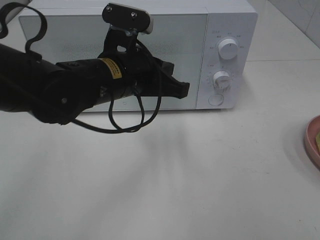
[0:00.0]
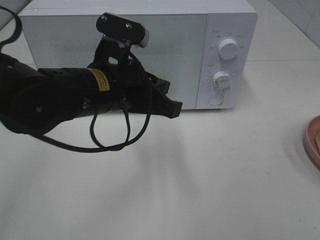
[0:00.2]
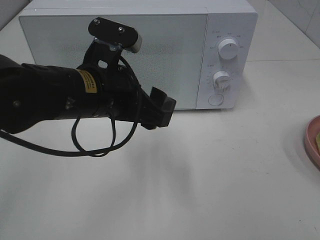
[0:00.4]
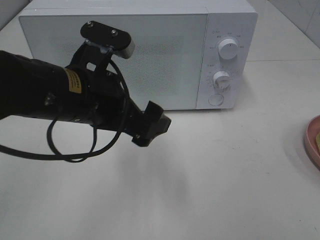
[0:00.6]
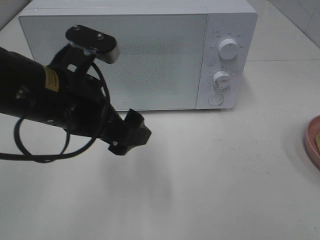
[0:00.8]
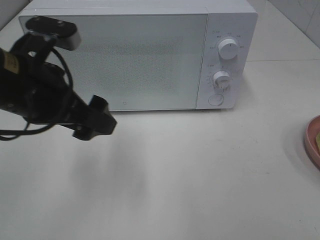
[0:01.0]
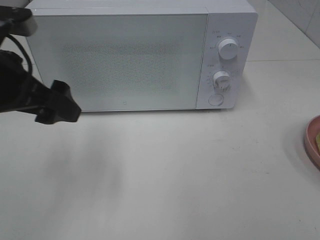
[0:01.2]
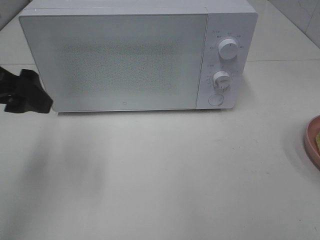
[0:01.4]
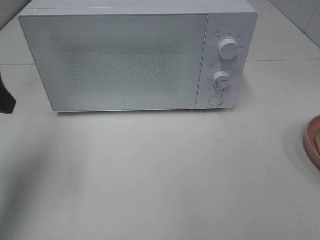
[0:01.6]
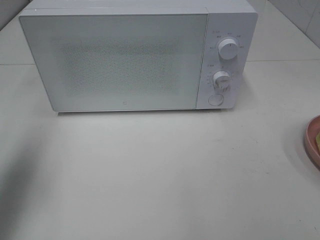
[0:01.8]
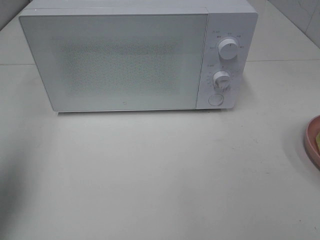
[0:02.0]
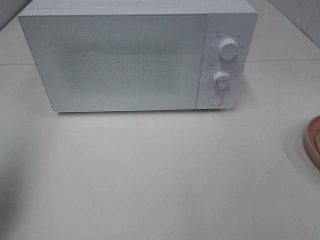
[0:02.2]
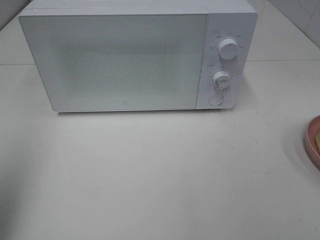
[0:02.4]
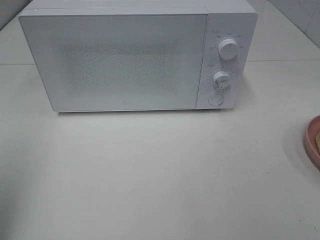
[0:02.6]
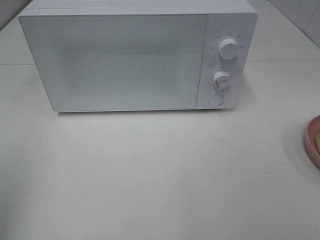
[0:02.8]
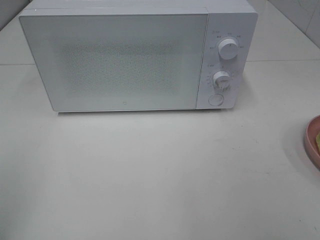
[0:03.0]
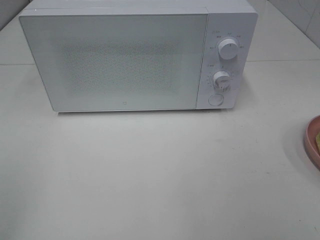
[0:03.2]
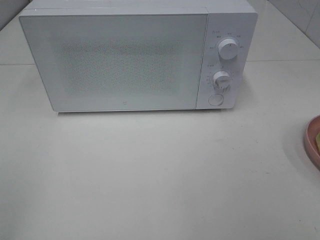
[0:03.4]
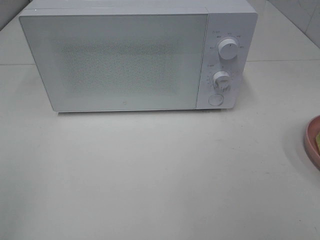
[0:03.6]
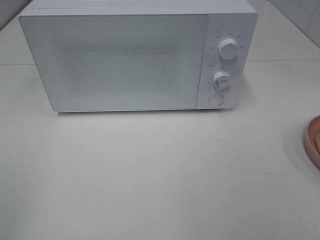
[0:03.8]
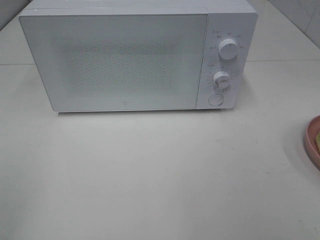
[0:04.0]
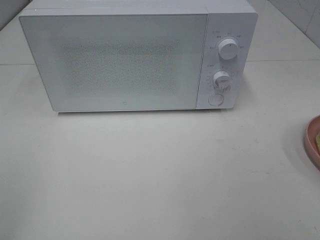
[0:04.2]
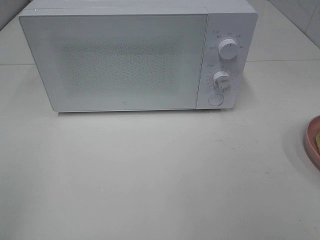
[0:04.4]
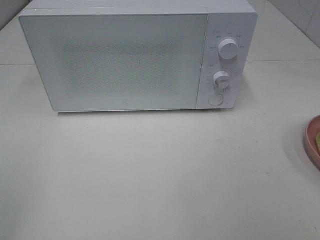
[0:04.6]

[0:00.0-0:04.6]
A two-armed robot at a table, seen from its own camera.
Task of the whole recording: Heat Sandwich.
0:00.0 to 0:01.6: The left gripper heads to the left, covering roughly 20 cm, and opens.
0:01.6 to 0:03.0: The left gripper shifts approximately 20 cm backward.

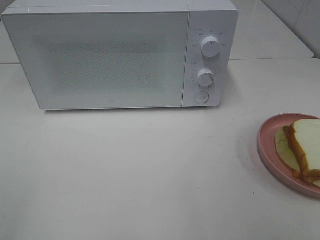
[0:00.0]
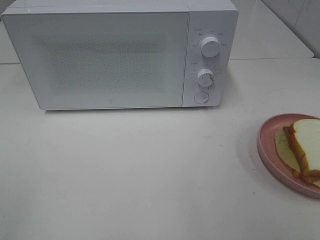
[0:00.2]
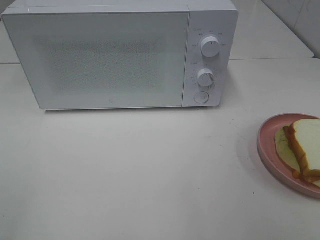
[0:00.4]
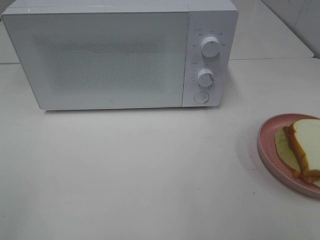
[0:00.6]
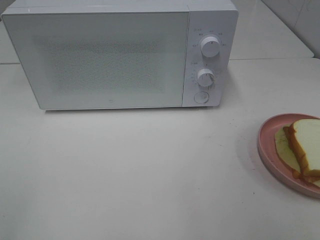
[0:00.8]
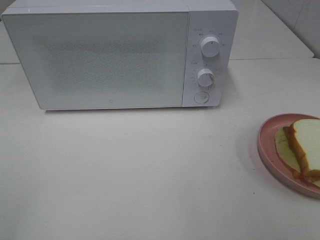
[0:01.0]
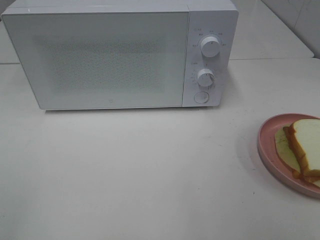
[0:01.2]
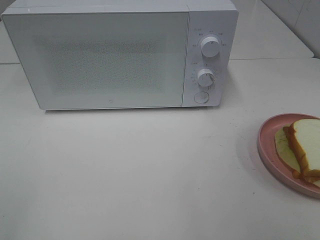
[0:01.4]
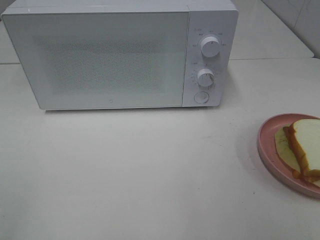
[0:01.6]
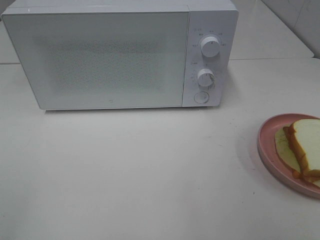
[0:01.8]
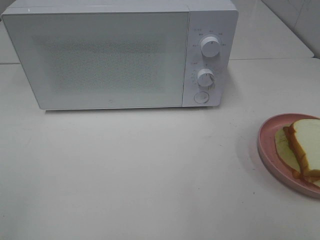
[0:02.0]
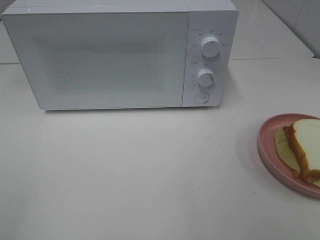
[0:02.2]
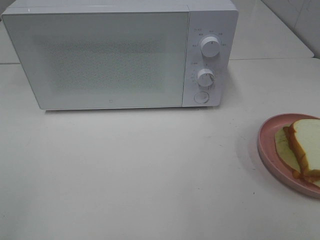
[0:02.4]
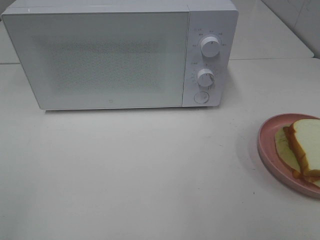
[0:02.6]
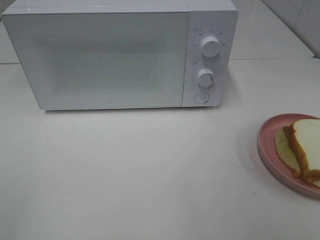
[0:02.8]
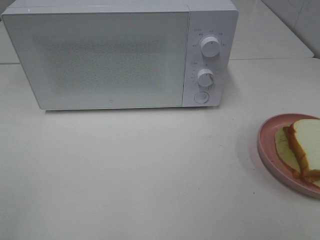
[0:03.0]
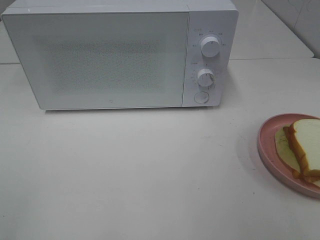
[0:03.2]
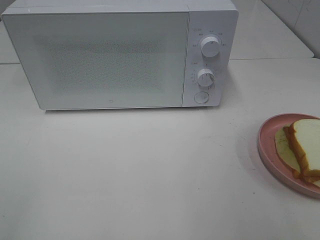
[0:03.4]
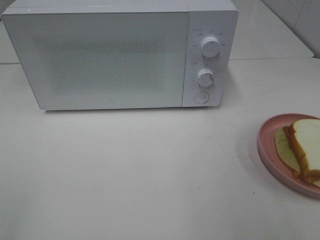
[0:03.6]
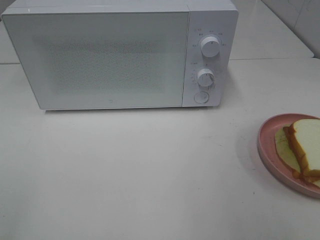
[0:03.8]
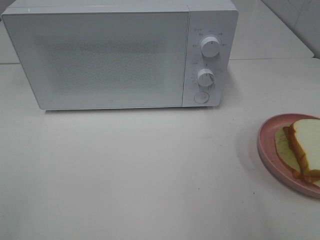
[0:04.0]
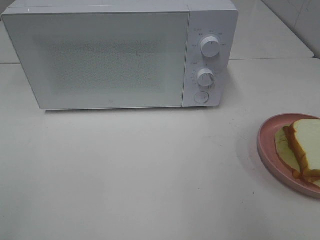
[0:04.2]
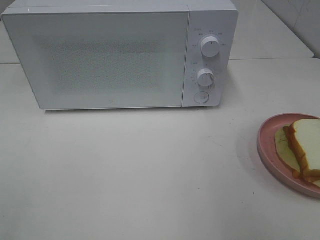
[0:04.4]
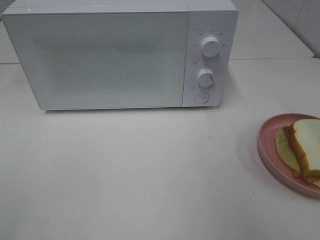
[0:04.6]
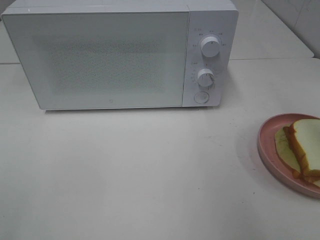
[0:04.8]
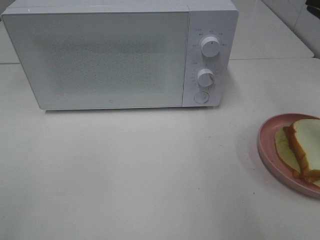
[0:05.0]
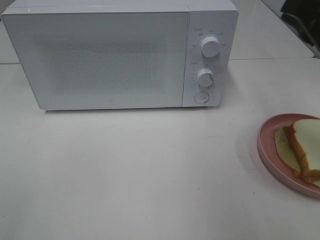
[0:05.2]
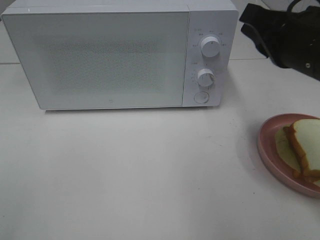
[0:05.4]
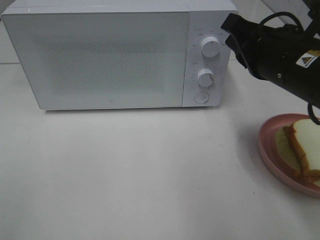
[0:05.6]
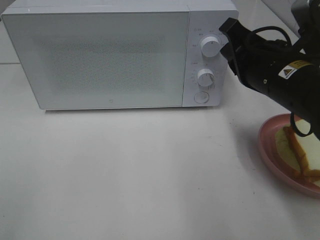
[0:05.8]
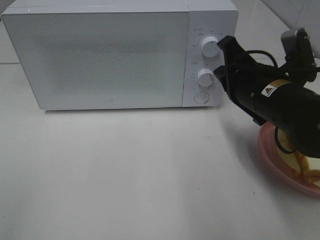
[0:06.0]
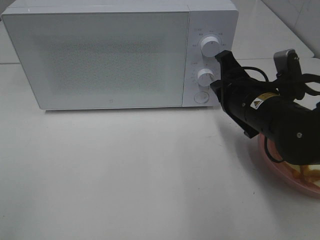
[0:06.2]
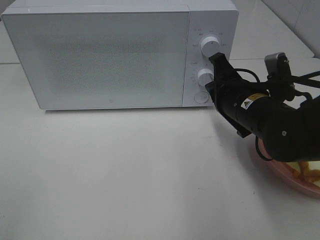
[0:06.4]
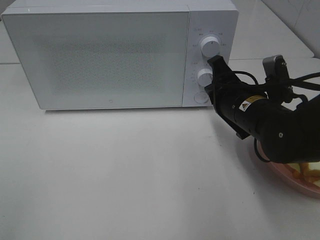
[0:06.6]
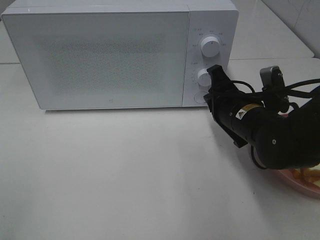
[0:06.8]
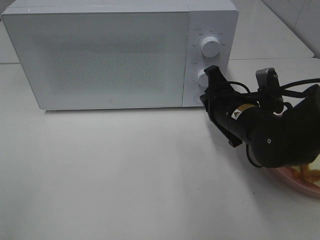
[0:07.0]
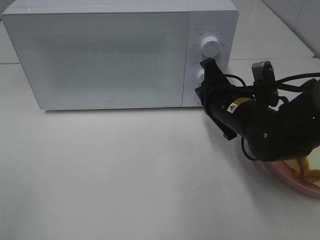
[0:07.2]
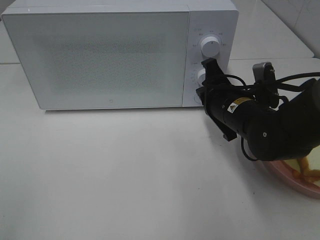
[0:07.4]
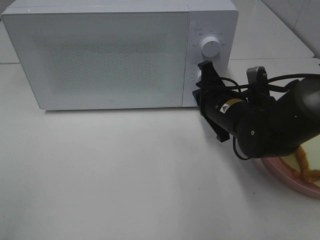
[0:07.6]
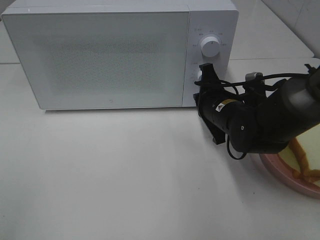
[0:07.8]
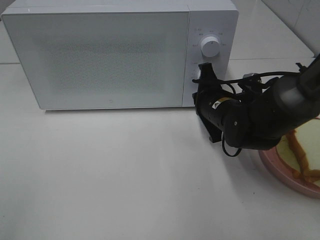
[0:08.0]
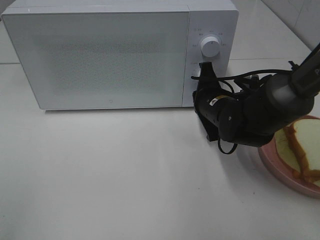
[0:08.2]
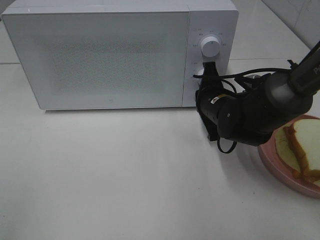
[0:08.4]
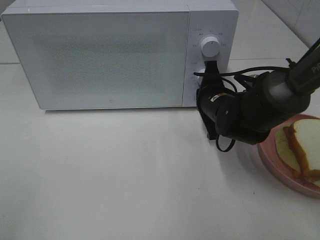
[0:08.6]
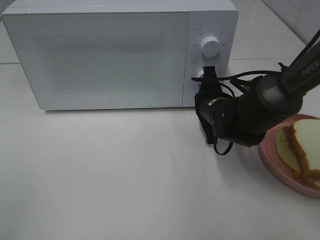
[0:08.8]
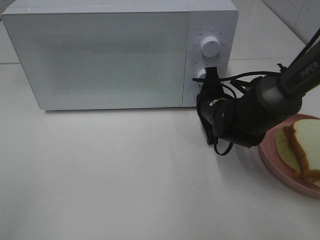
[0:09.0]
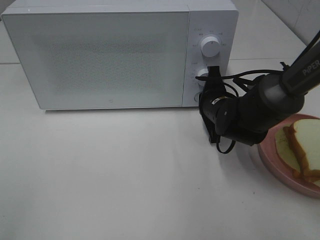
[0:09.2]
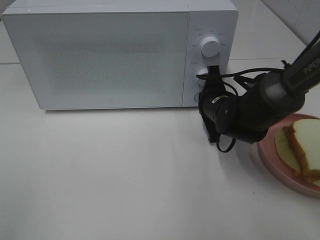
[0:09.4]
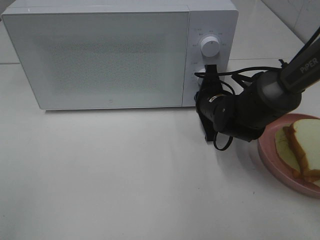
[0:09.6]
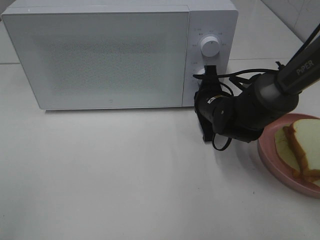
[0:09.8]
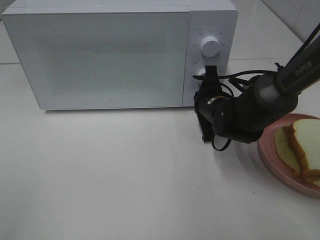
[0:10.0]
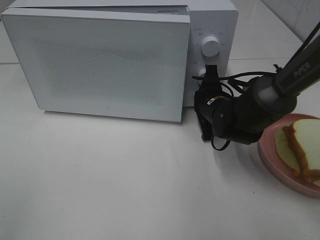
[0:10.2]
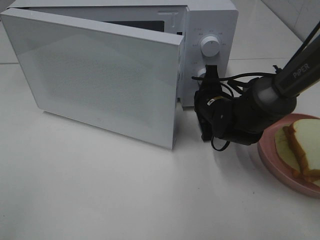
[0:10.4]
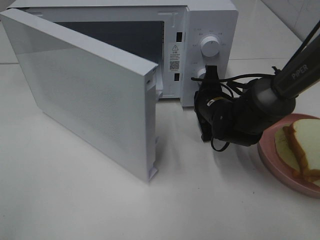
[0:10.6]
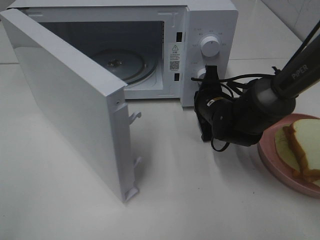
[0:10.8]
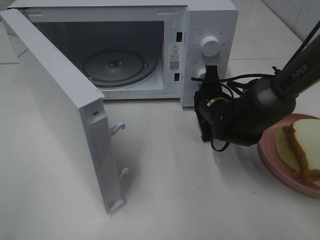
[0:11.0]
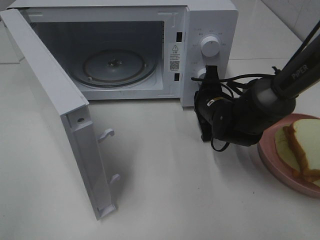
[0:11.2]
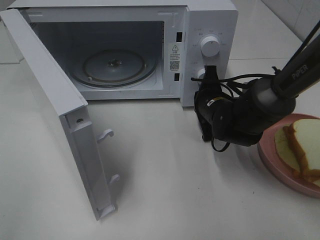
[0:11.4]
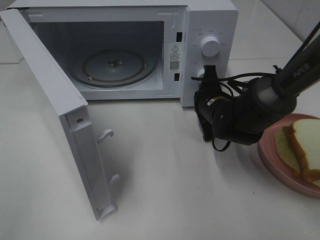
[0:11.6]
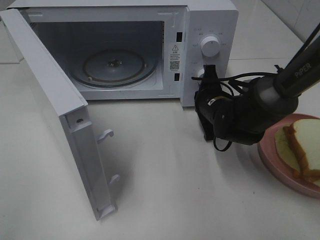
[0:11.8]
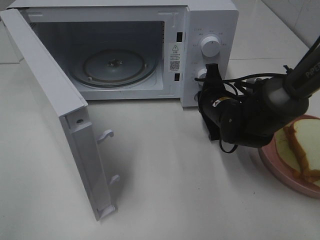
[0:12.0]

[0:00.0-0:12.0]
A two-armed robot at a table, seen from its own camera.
Task of the whole recording: Heat Sandwich.
0:00.0 to 0:01.6: Neither gripper changes place.
0:04.4 to 0:06.0: The right gripper travels downward, forward and to the left by approximately 25 cm.
0:06.0 to 0:07.6: The right gripper moves downward, roughly 5 cm.
0:09.0 to 0:10.4: The grippers stay close to where they were, moving slightly.

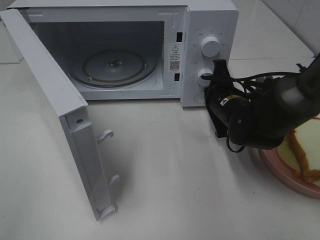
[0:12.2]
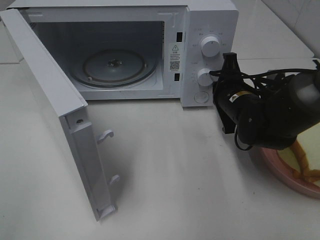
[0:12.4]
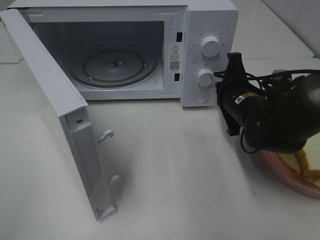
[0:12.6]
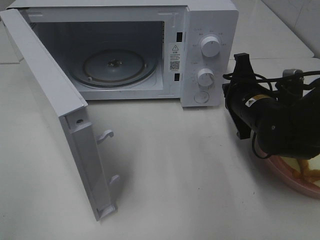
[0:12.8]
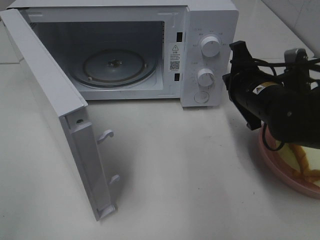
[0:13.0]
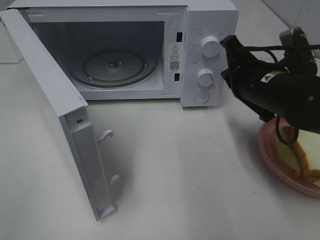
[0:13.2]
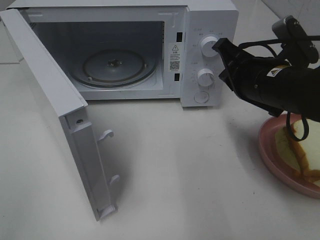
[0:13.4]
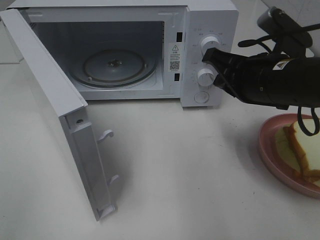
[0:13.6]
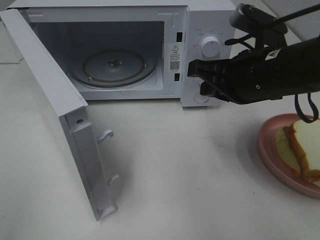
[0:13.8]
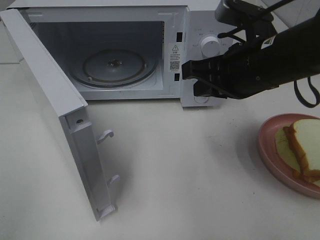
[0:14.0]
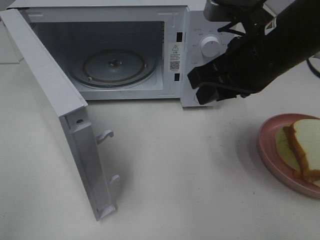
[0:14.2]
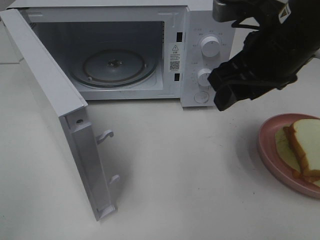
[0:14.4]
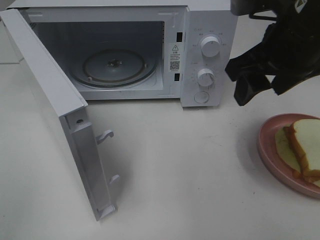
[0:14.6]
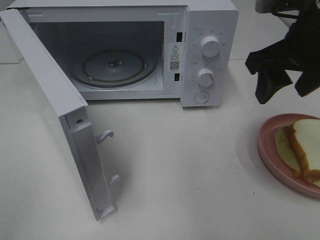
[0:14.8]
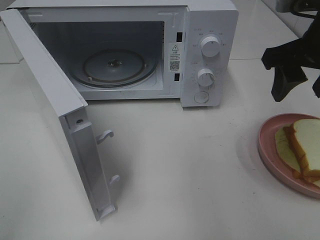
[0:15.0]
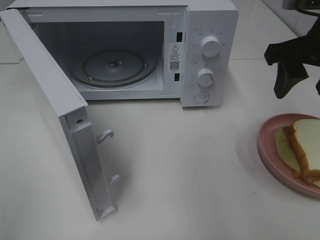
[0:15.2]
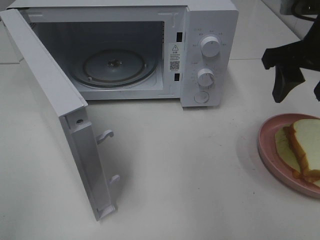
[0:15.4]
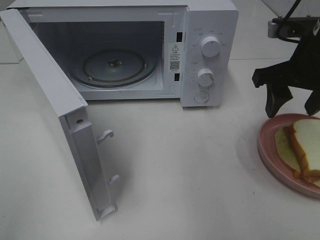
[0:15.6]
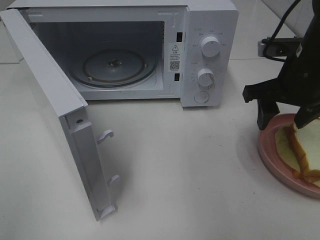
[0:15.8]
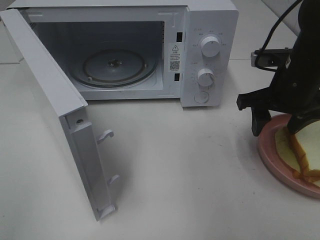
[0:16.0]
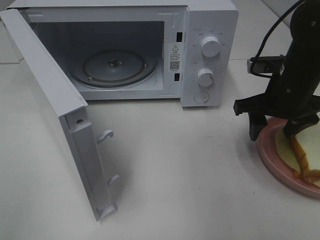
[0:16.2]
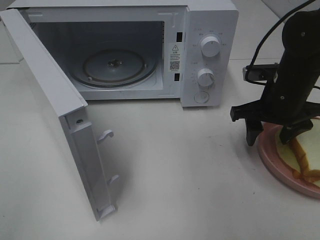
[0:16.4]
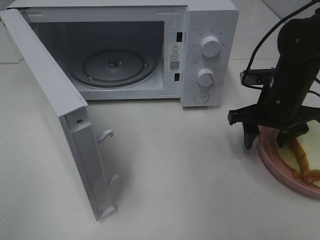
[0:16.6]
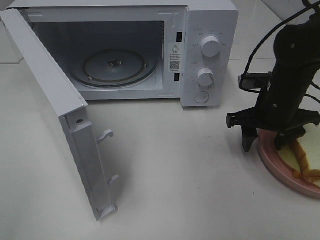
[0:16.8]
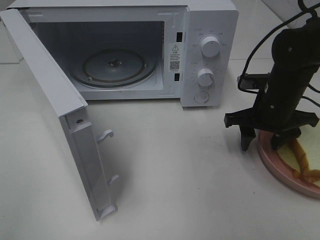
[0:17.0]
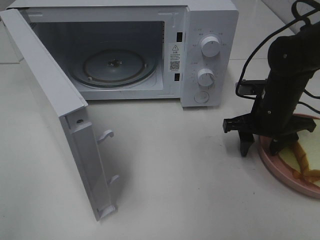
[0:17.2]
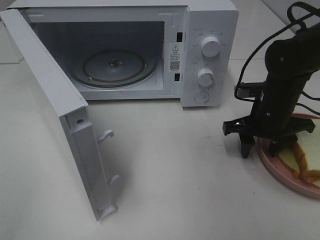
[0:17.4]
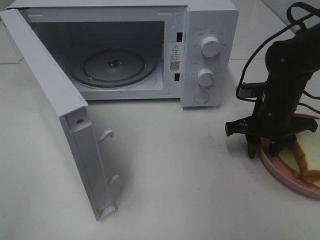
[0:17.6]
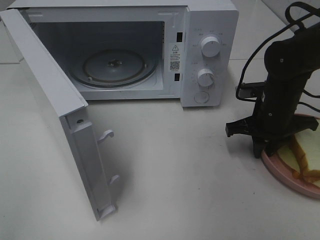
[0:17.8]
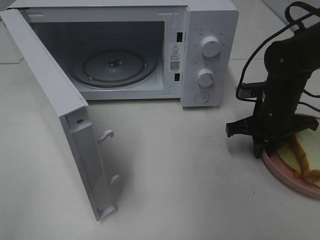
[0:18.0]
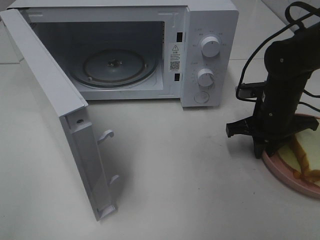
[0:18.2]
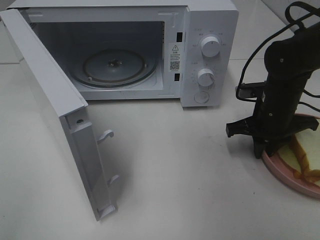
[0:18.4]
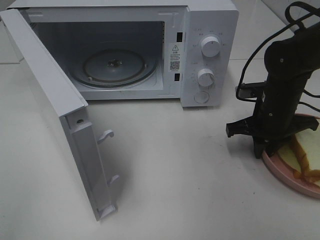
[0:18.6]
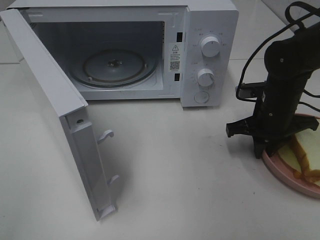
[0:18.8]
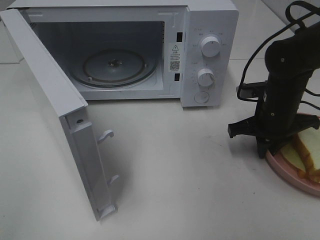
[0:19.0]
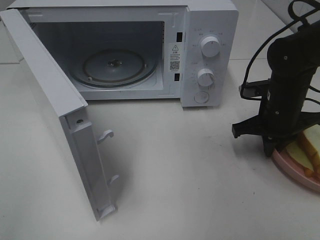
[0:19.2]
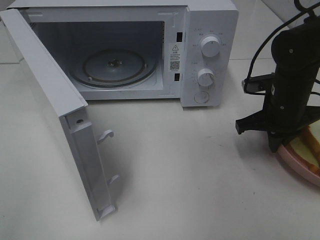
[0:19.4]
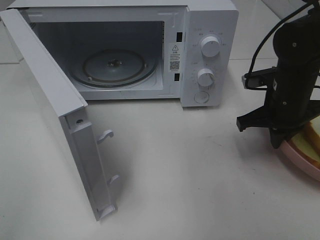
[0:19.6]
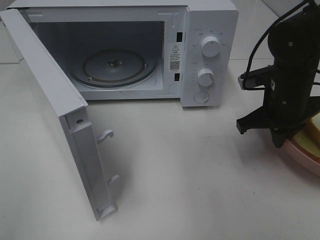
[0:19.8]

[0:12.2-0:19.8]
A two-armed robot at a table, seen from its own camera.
Task of the whole recording: Heat Sandwich.
Step, 0:12.4 to 0:18.6: Right hand: grab the plate with the sandwich.
0:12.2 to 0:13.8: The right gripper travels upward and backward by about 15 cm.
0:13.8 to 0:15.2: The right gripper is displaced to the right and upward by about 10 cm, and opens its fingers.
0:15.2 to 0:16.8: The right gripper moves downward, roughly 15 cm.
0:16.8 to 0:18.2: The right gripper closes up.
0:18.2 to 0:19.8: The right gripper changes place by about 5 cm.
